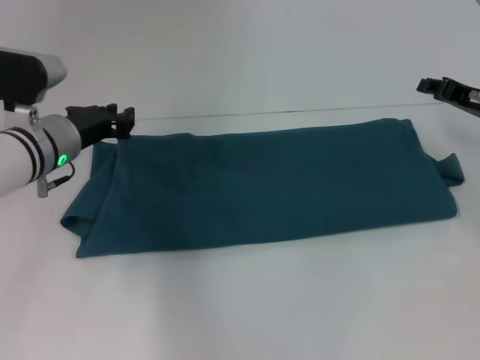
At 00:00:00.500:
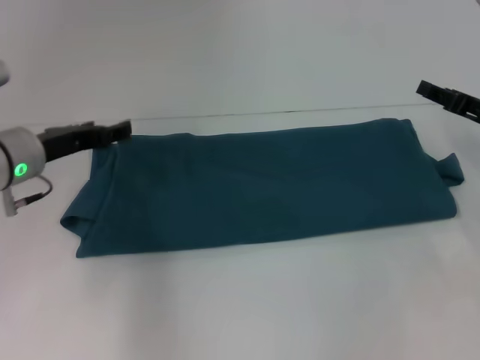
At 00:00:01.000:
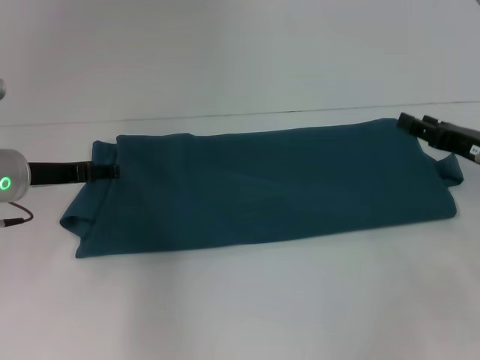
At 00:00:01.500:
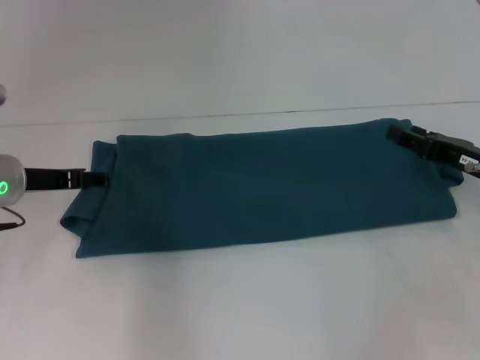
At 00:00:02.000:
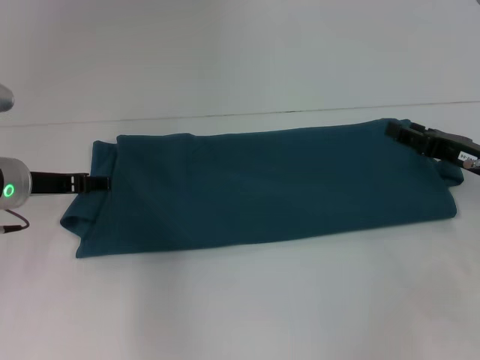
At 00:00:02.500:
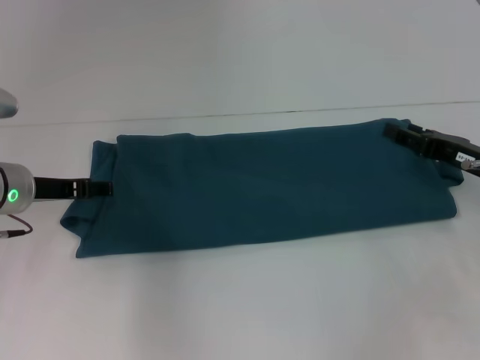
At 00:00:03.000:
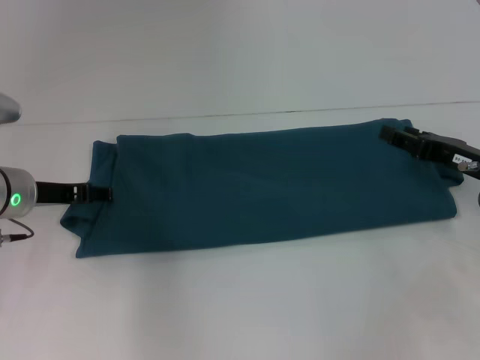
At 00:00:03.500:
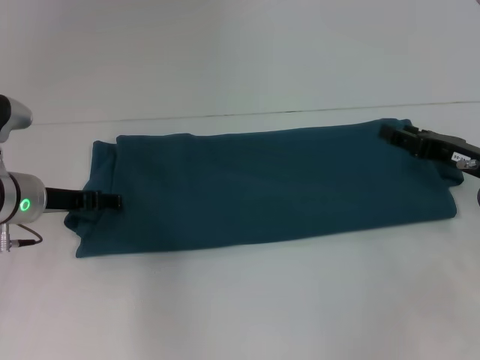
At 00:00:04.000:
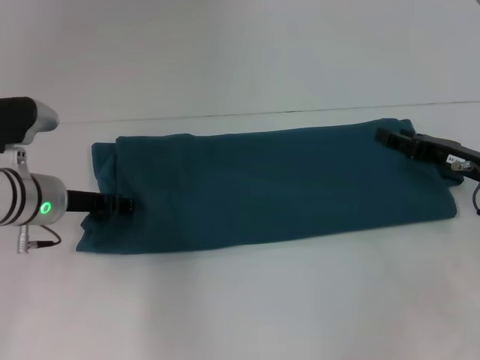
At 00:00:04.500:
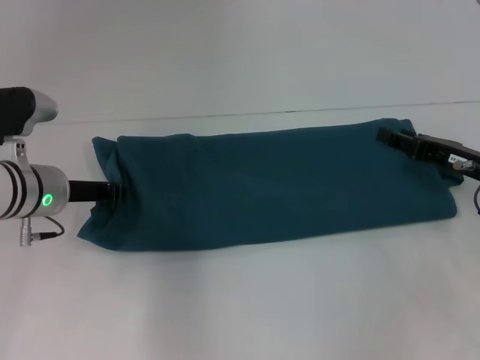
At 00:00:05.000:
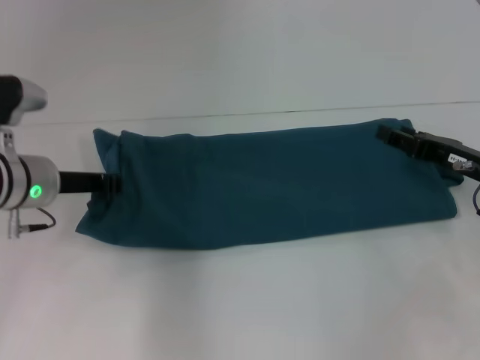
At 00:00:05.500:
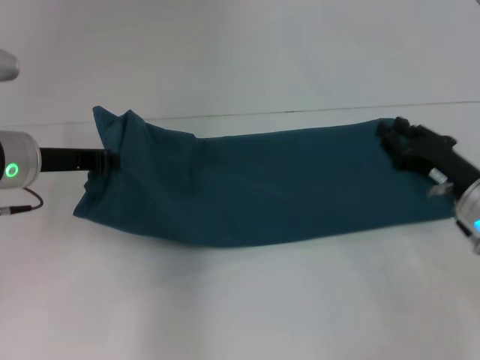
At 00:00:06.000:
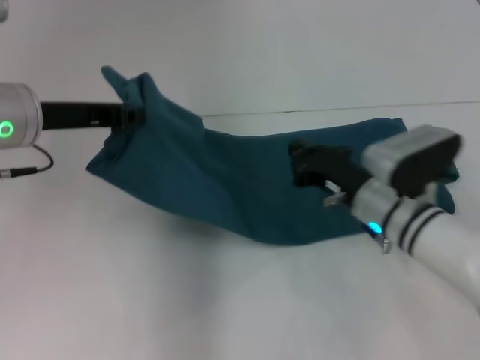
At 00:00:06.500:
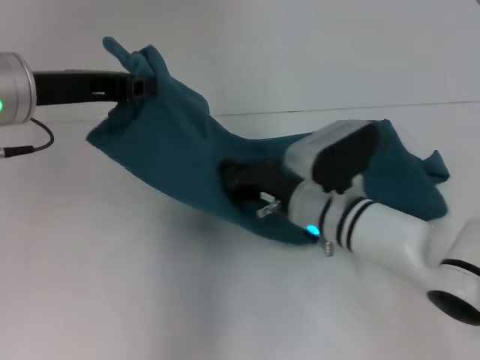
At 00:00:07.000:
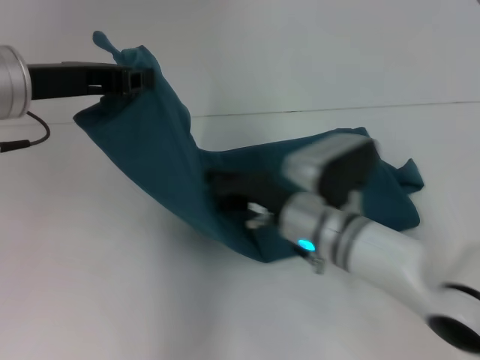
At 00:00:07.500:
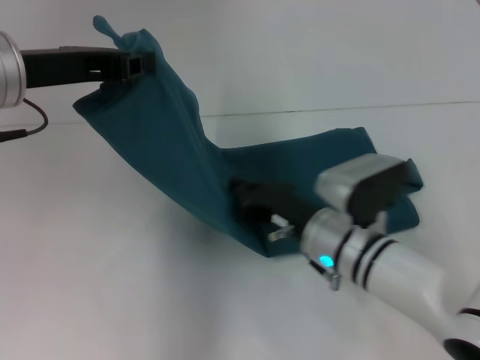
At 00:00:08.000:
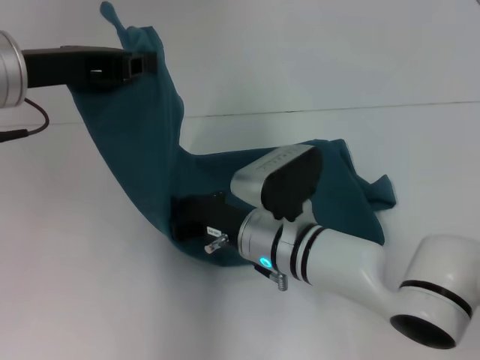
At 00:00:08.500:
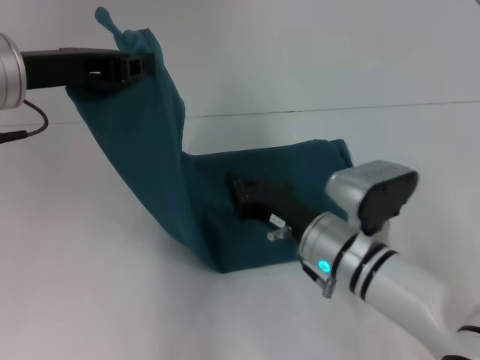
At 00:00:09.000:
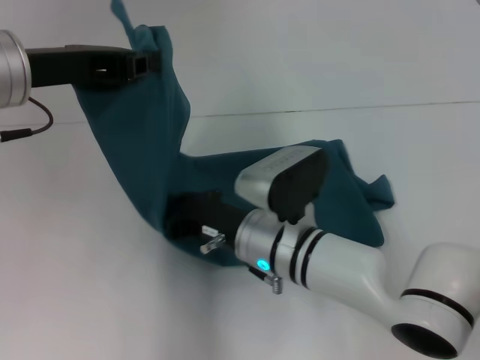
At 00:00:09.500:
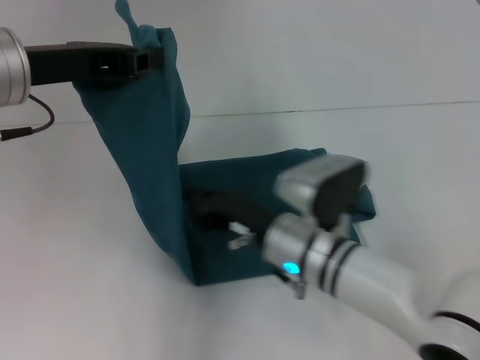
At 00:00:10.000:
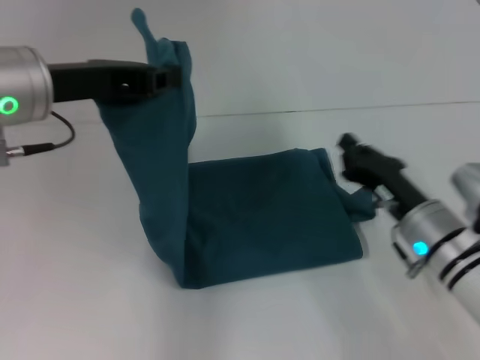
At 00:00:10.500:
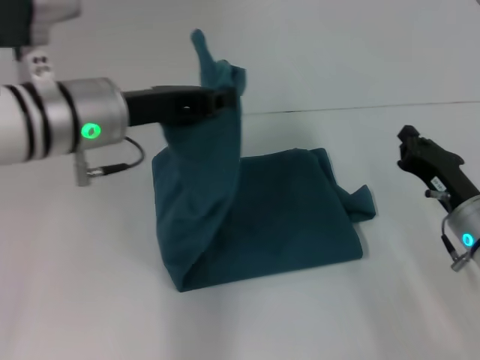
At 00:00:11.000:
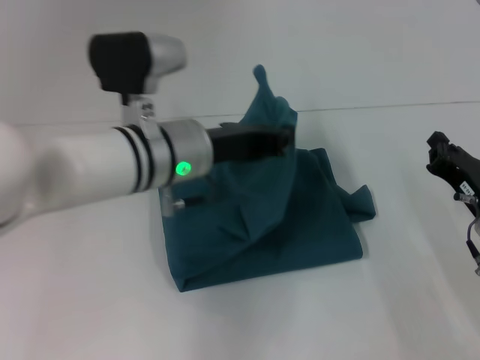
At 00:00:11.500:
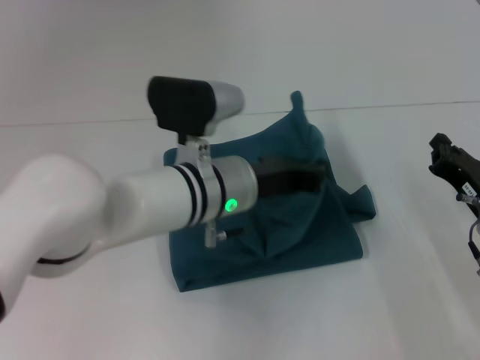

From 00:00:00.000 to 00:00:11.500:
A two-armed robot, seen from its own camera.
From 00:00:00.000 to 00:00:02.000: The right gripper shifts about 5 cm backward, and opens. Meanwhile the left gripper travels to the left by approximately 5 cm, and opens up.
From 00:00:02.000 to 00:00:04.000: The grippers stay close to where they were, moving slightly.
From 00:00:04.000 to 00:00:06.000: The left gripper travels upward by roughly 15 cm, and closes its fingers. Meanwhile the right gripper moves to the left, about 15 cm, and closes up.
From 00:00:06.000 to 00:00:07.500: The right gripper moves to the left, roughly 5 cm.
From 00:00:07.500 to 00:00:09.500: The right gripper swings left and right, approximately 5 cm each way, with 2 reversals.
From 00:00:09.500 to 00:00:11.500: The right gripper heads to the right, covering about 20 cm. Meanwhile the left gripper is displaced to the right and downward by approximately 20 cm.

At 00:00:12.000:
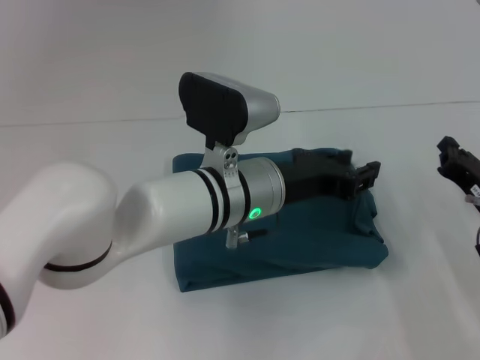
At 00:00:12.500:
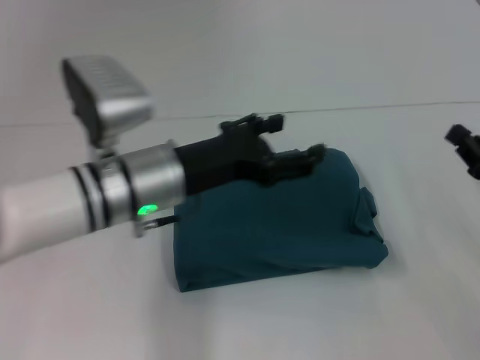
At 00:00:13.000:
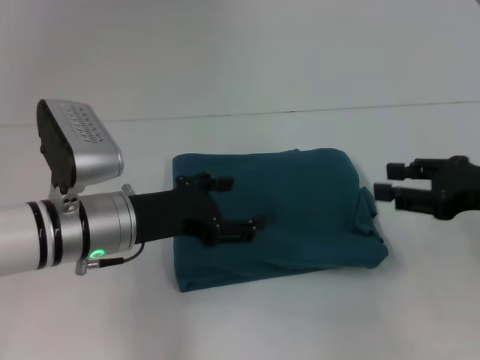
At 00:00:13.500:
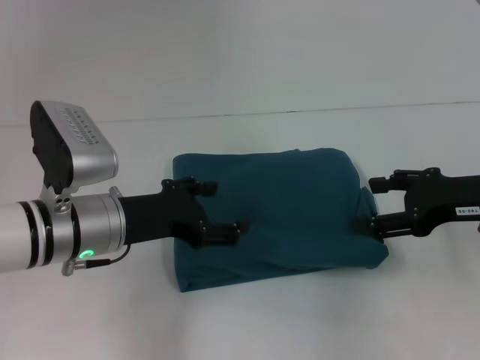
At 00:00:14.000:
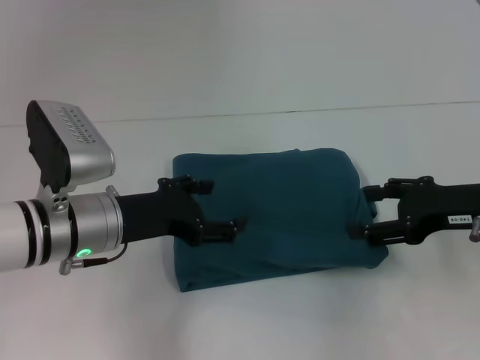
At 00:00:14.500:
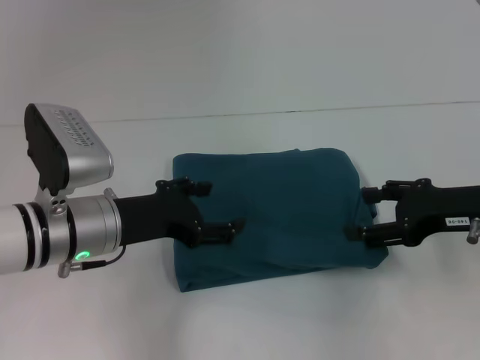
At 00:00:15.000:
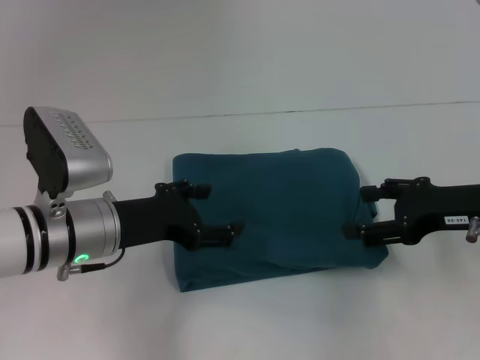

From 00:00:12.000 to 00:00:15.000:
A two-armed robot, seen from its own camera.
From 00:00:12.000 to 00:00:13.500: The right gripper heads upward, covering some 10 cm, and opens up. Meanwhile the left gripper heads to the left, covering roughly 15 cm, and opens.
From 00:00:13.500 to 00:00:15.000: Both grippers stay put.

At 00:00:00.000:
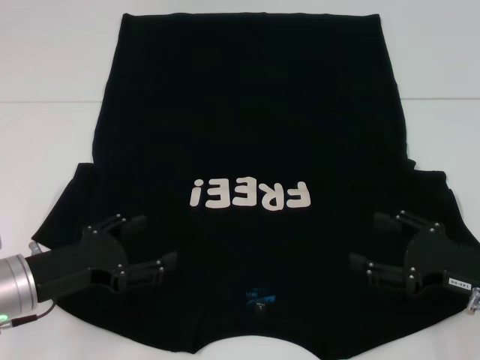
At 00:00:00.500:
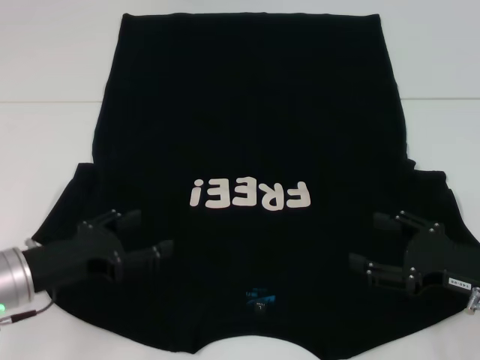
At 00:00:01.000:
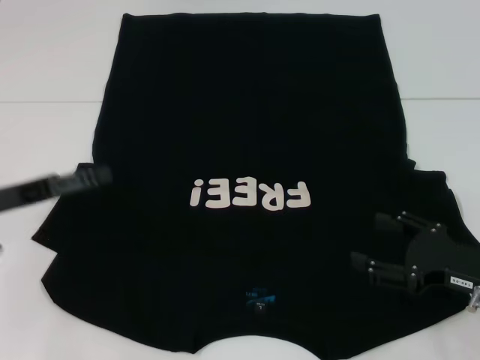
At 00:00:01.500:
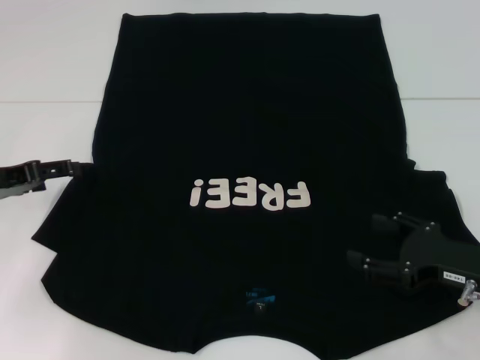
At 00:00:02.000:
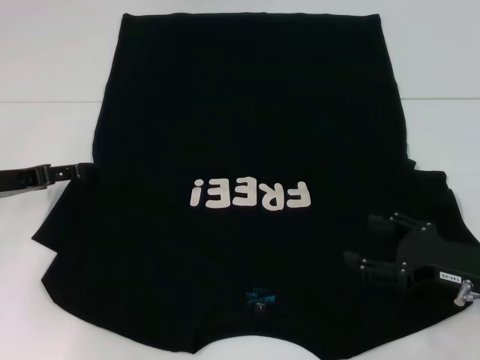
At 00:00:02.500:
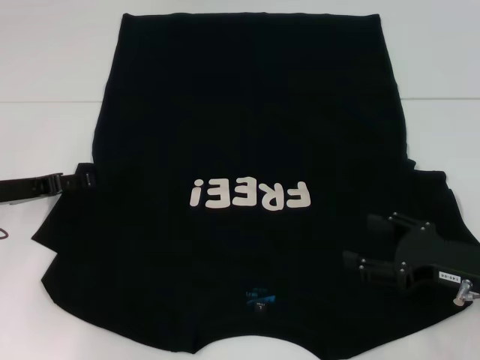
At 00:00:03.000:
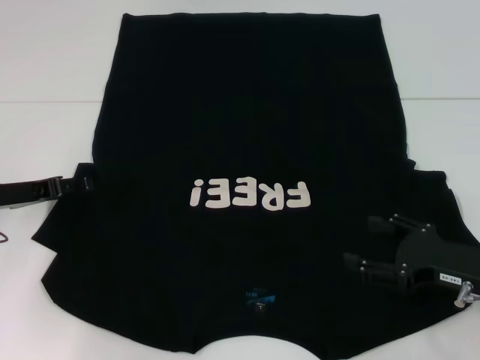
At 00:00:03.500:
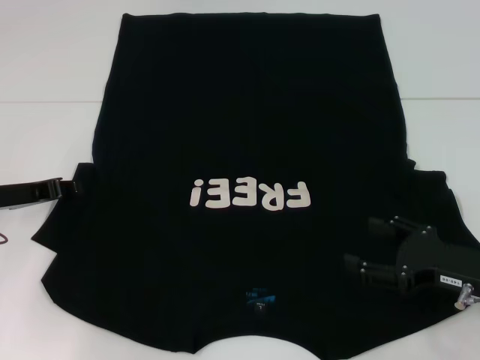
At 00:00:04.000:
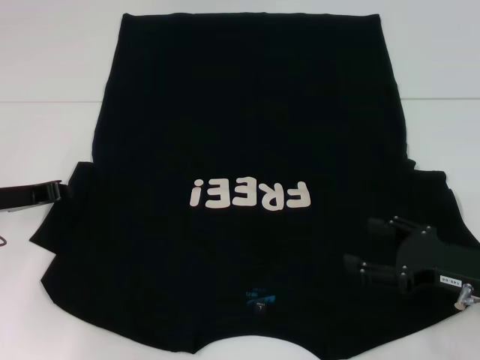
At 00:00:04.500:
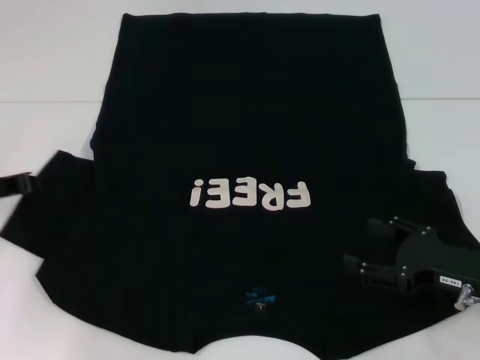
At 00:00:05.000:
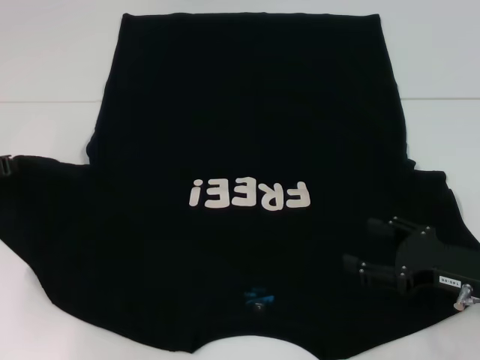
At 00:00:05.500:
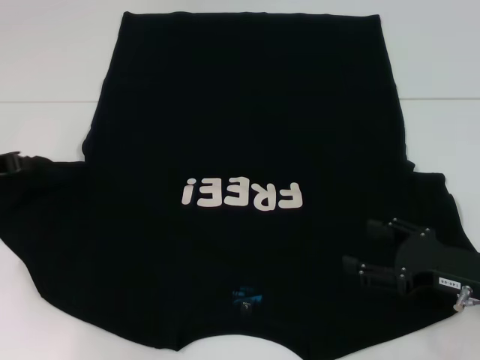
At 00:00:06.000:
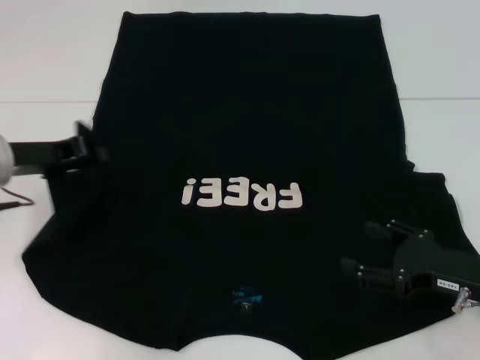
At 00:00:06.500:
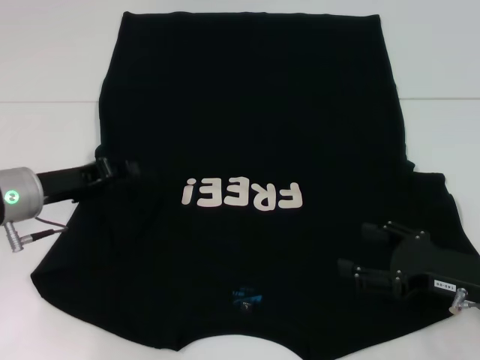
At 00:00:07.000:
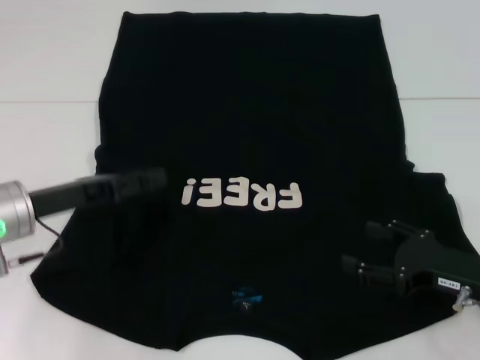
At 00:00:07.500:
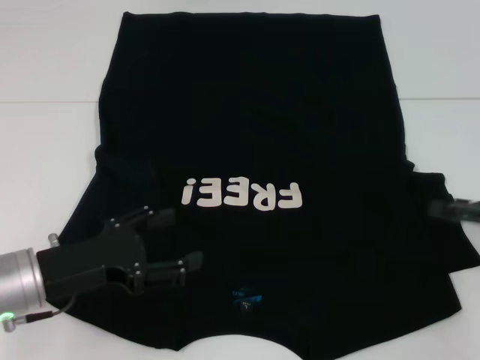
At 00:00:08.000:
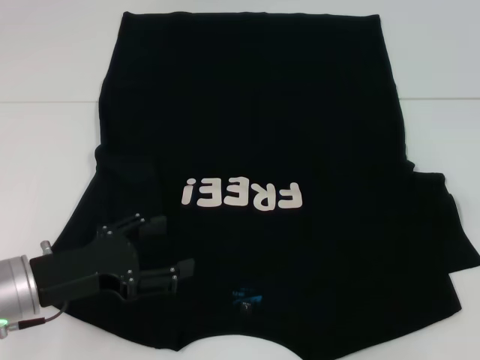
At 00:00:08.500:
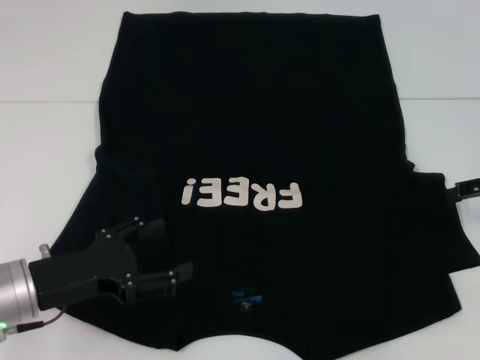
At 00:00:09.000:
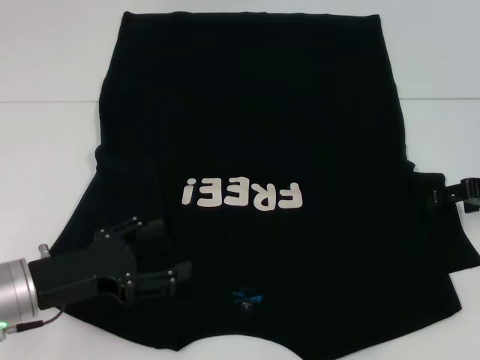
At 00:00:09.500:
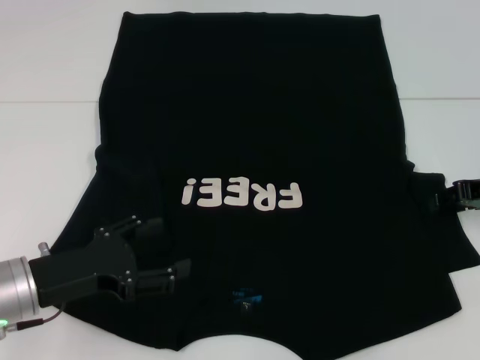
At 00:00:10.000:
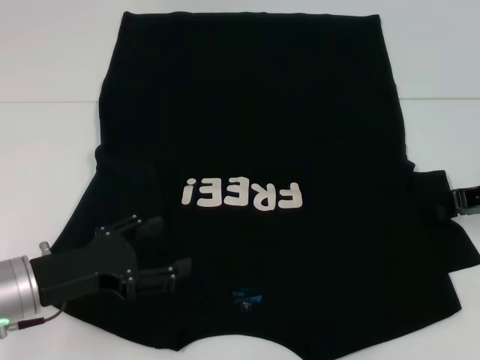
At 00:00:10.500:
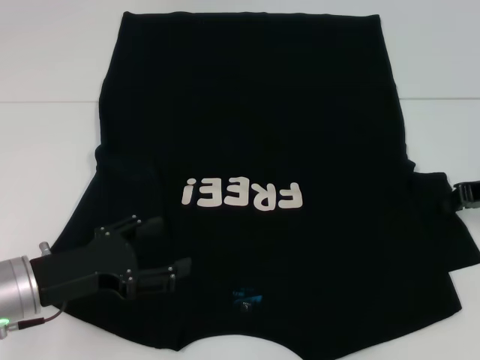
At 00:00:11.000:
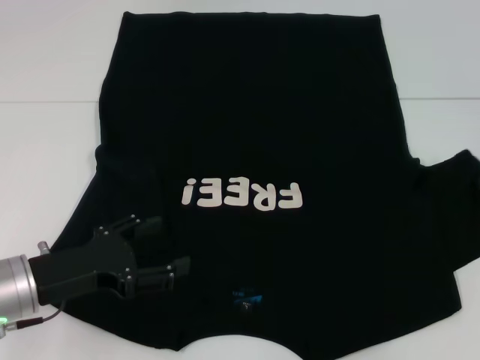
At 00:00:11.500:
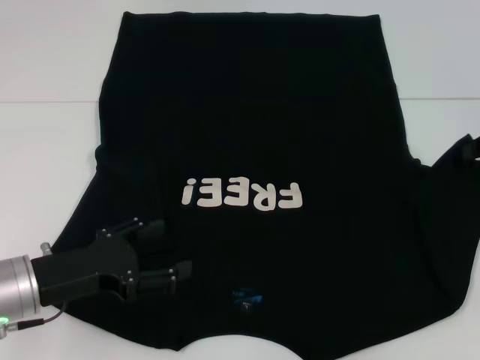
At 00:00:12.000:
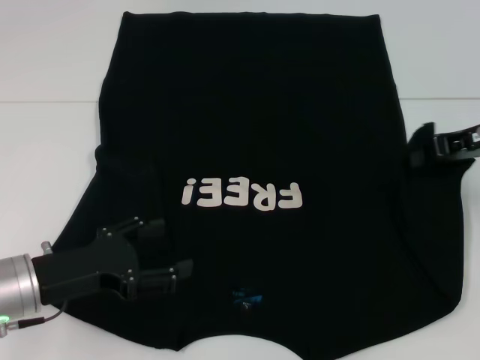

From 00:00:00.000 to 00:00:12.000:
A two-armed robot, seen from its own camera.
Step, from 00:00:00.000 to 00:00:07.000: Fold the bottom left sleeve with your left hand.
From 00:00:00.000 to 00:00:02.000: The left gripper travels forward and to the left by roughly 10 cm.
From 00:00:02.000 to 00:00:04.000: The left gripper closes.
From 00:00:04.000 to 00:00:06.000: The left gripper moves some 5 cm.
From 00:00:06.000 to 00:00:08.000: The left gripper heads backward and downward, covering approximately 15 cm, and opens up. The right gripper heads upward, to the right and forward, covering roughly 20 cm.
From 00:00:08.000 to 00:00:10.000: The right gripper travels to the left and downward by approximately 10 cm, and closes its fingers.
From 00:00:10.000 to 00:00:12.000: The right gripper travels upward by roughly 5 cm.
